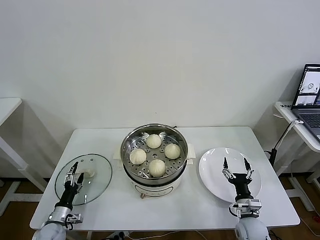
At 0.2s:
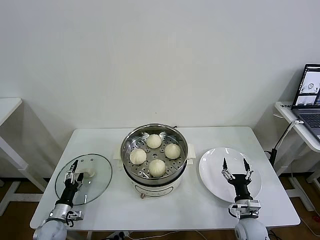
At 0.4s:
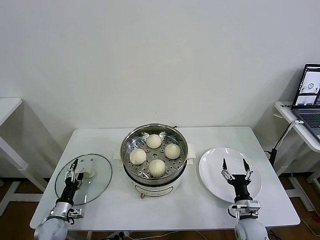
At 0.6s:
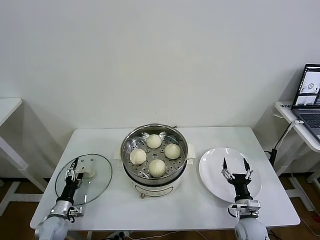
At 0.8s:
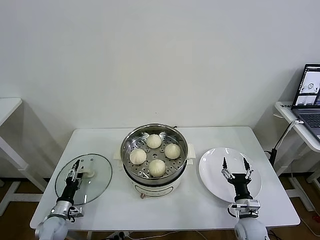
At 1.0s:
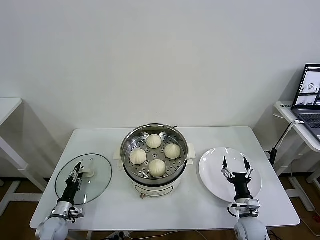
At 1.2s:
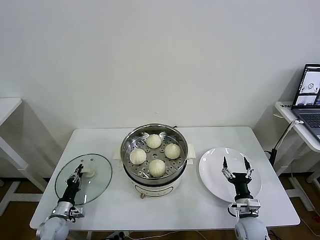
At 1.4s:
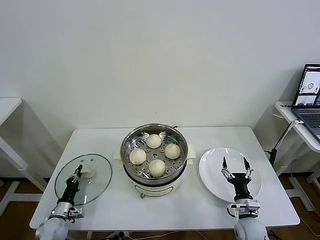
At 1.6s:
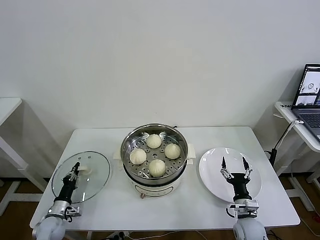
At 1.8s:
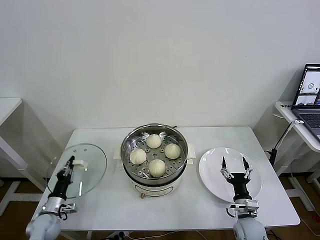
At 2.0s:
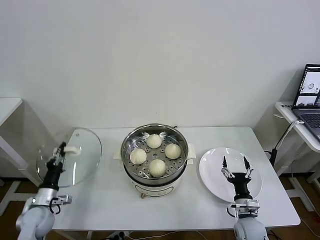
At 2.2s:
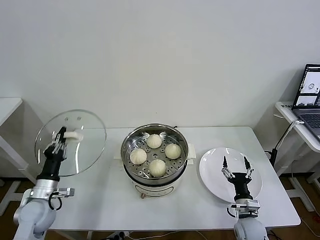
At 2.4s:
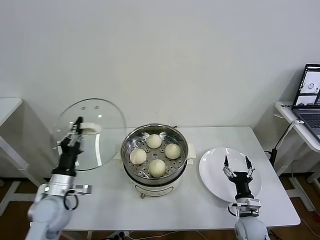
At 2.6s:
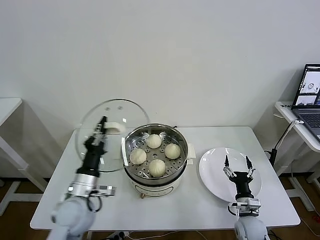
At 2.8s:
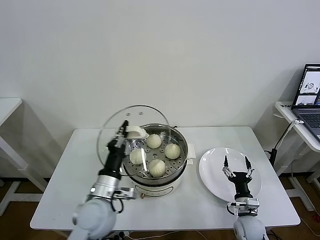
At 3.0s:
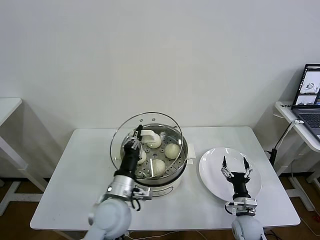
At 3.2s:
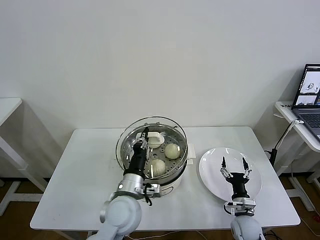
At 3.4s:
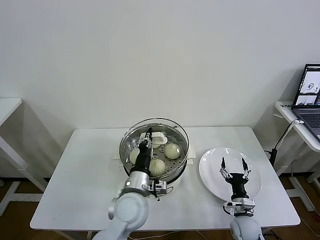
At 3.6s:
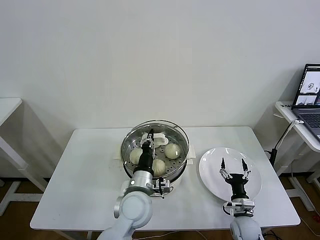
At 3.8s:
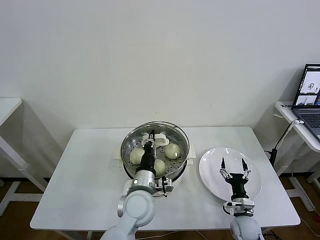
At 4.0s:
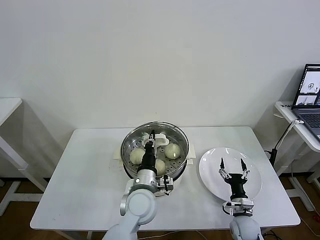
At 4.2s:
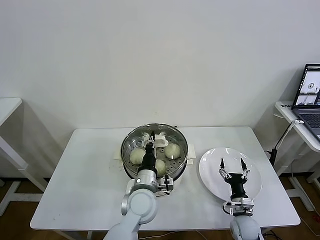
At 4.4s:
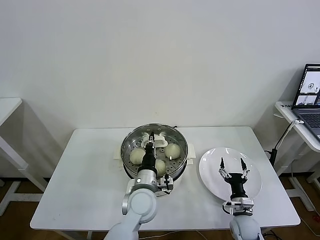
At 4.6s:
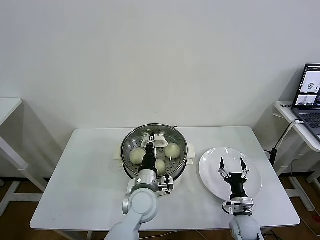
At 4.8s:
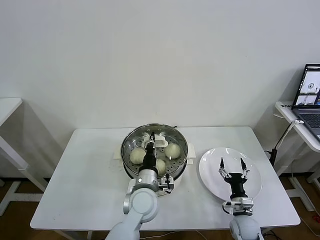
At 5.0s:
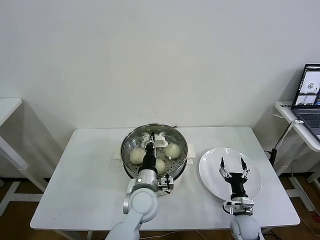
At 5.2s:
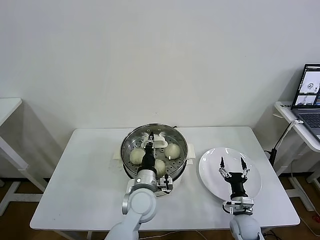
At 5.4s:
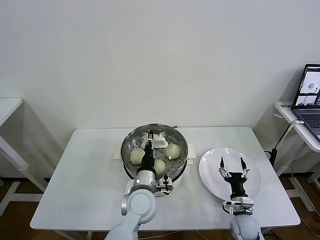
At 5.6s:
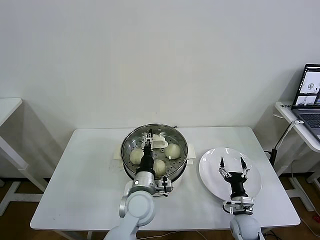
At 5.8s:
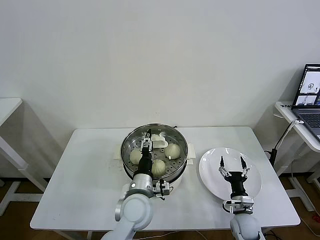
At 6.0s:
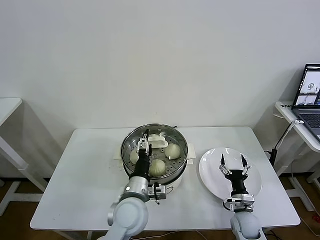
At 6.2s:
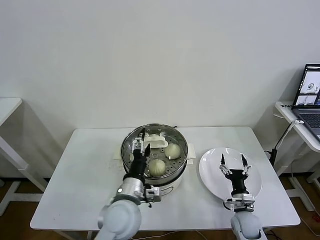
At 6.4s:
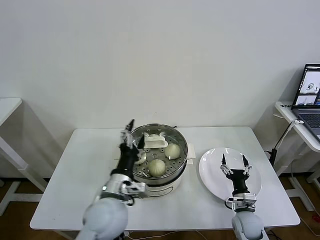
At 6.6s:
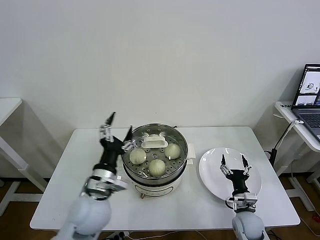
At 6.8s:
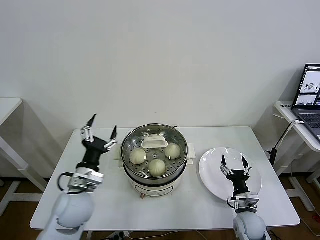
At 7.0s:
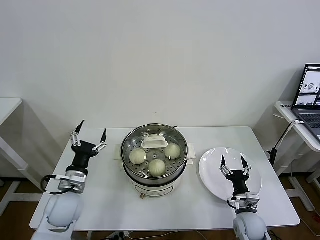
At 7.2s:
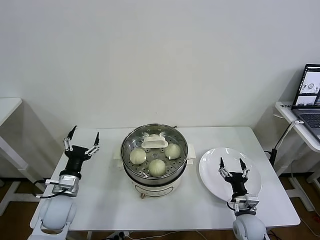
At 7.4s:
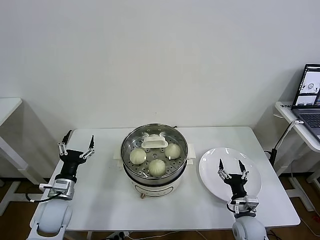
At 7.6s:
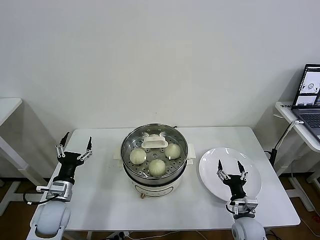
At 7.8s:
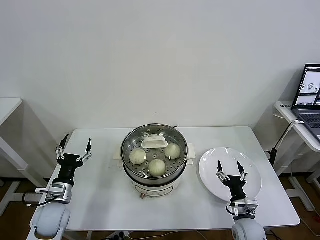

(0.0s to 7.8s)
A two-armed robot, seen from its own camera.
Task of the whole recording: take steamed baozi put them in steamer then cover it.
Step, 1.6s - 5.4s: Place the pot lid on the steamer with left gripper.
0.0s - 1.6s: The left gripper closes.
1.6s - 3.2s: The left gripper travels to the right and upward by approximately 40 cm.
3.2s - 4.6s: The left gripper heads to the right, covering approximately 5 cm.
4.6s - 6.2s: The left gripper ends up approximately 5 cm from where it was, and opens its fingers.
6.2s - 7.8s: The left gripper is displaced to the left by about 25 cm.

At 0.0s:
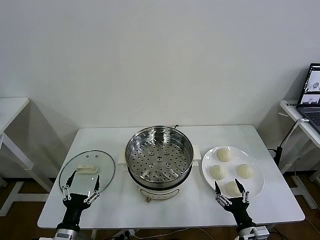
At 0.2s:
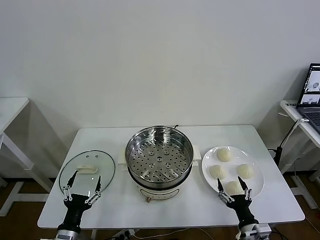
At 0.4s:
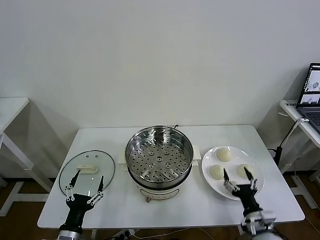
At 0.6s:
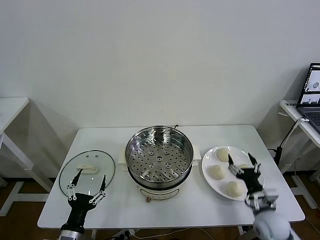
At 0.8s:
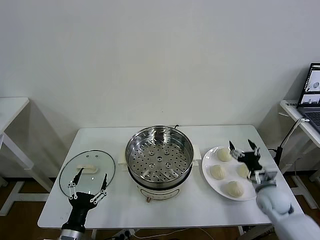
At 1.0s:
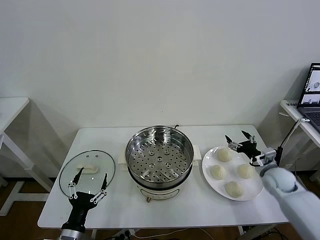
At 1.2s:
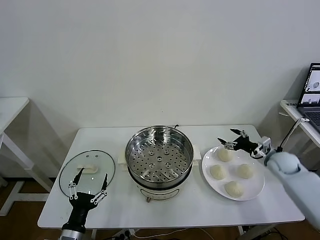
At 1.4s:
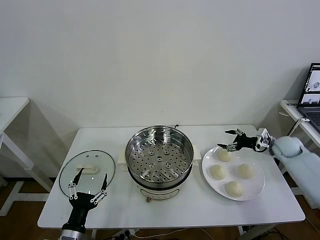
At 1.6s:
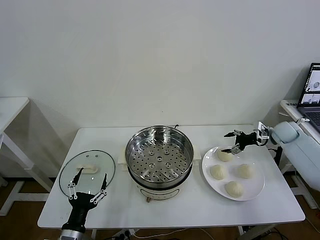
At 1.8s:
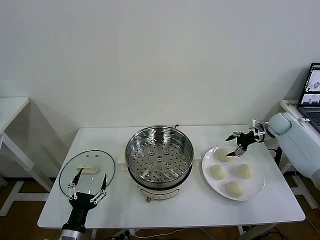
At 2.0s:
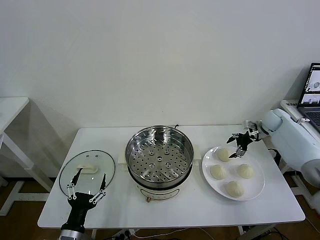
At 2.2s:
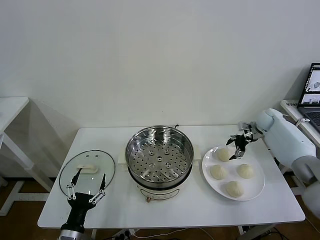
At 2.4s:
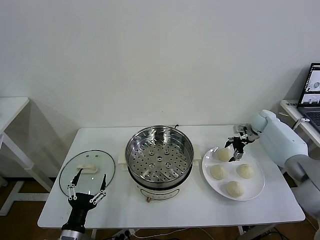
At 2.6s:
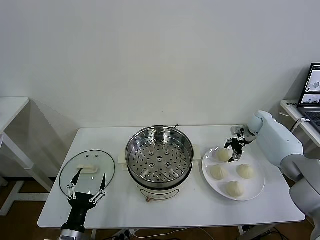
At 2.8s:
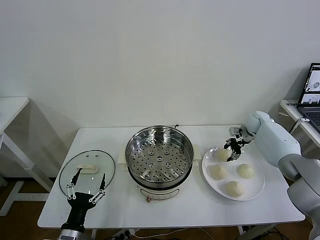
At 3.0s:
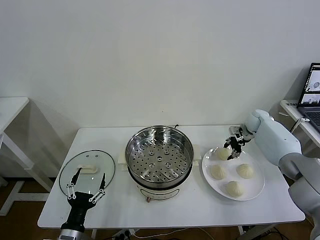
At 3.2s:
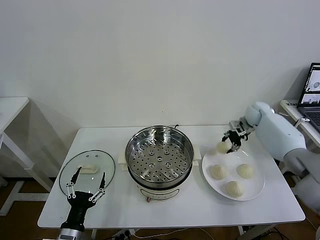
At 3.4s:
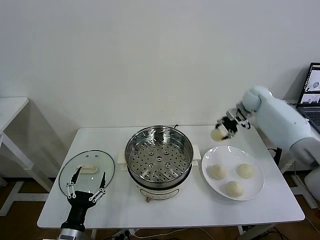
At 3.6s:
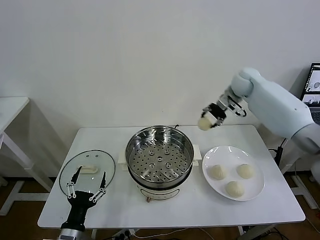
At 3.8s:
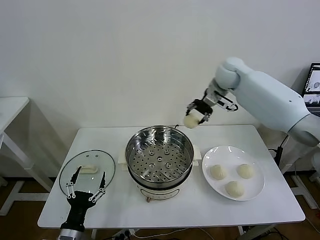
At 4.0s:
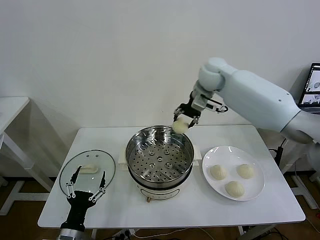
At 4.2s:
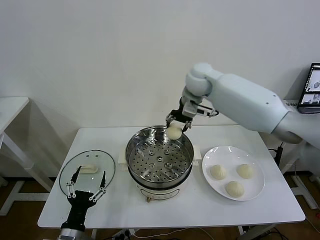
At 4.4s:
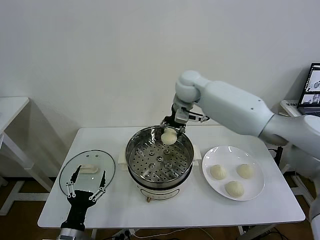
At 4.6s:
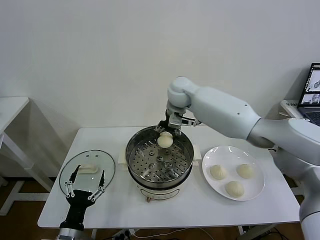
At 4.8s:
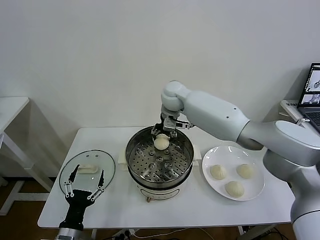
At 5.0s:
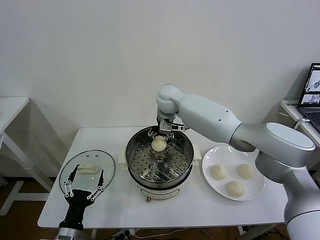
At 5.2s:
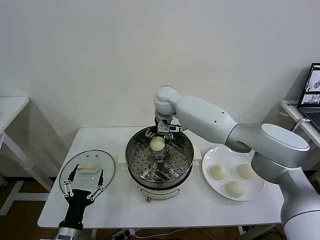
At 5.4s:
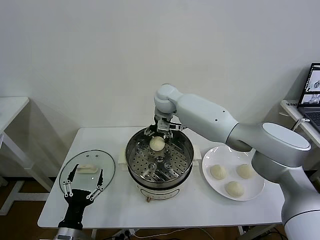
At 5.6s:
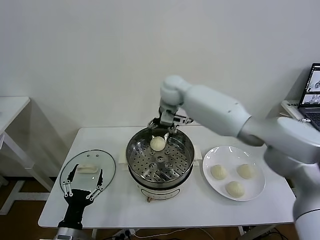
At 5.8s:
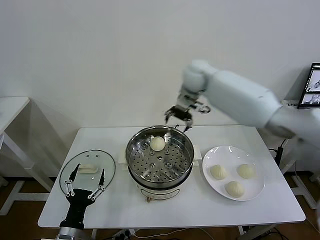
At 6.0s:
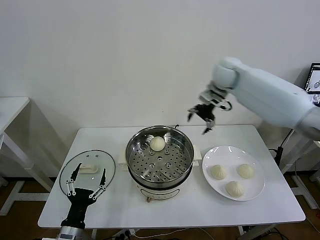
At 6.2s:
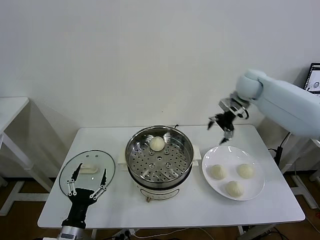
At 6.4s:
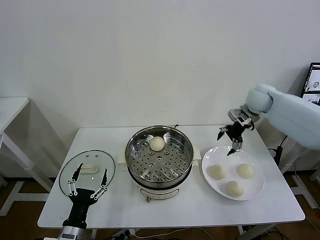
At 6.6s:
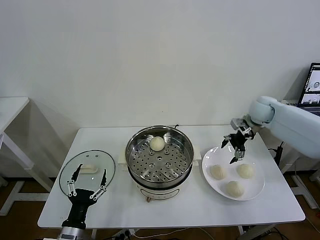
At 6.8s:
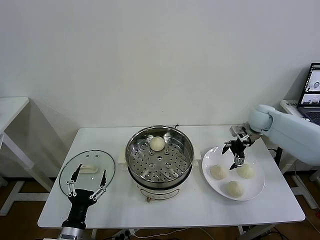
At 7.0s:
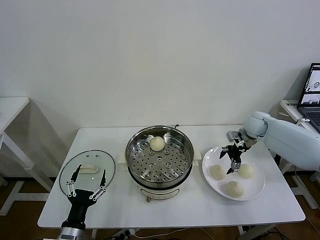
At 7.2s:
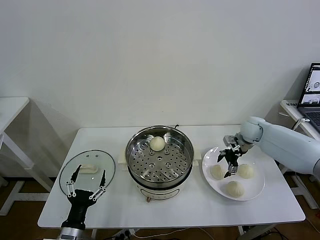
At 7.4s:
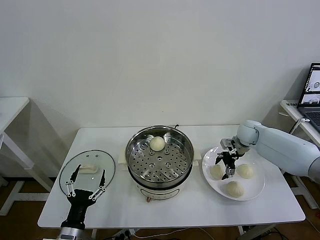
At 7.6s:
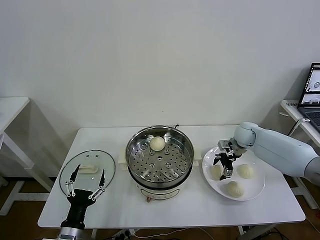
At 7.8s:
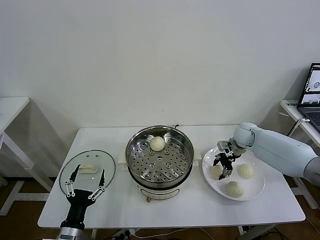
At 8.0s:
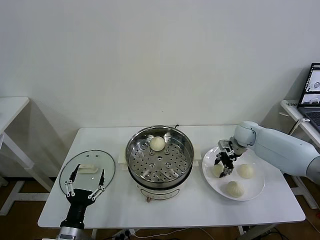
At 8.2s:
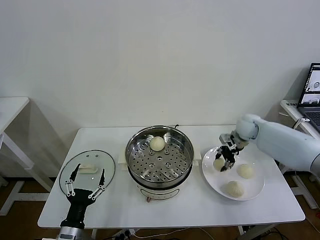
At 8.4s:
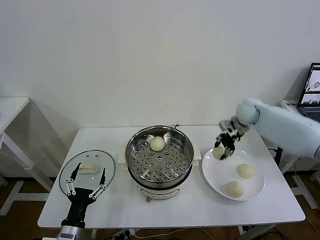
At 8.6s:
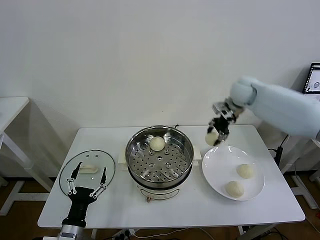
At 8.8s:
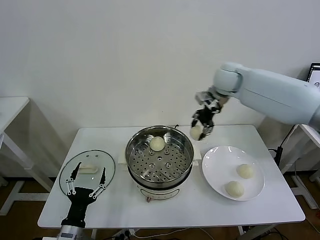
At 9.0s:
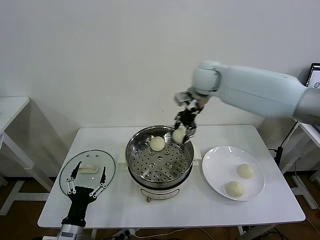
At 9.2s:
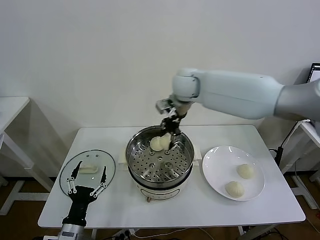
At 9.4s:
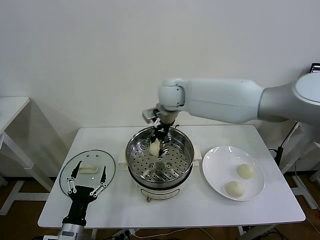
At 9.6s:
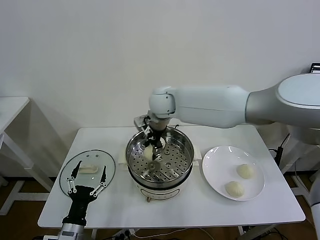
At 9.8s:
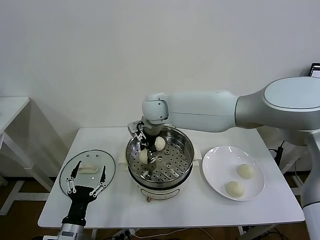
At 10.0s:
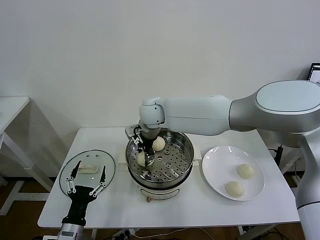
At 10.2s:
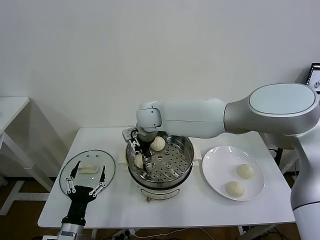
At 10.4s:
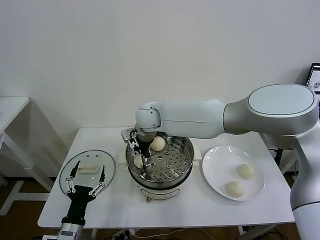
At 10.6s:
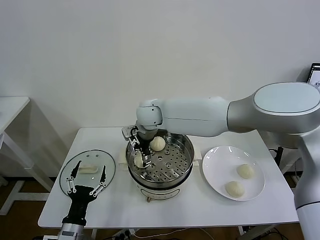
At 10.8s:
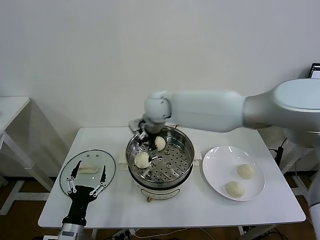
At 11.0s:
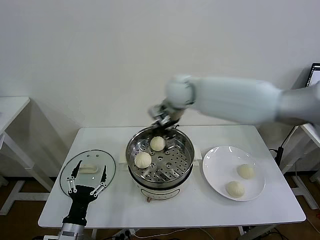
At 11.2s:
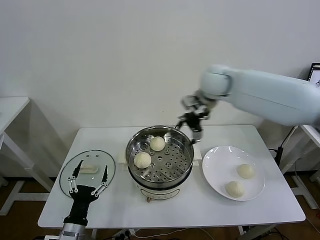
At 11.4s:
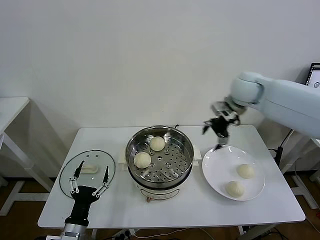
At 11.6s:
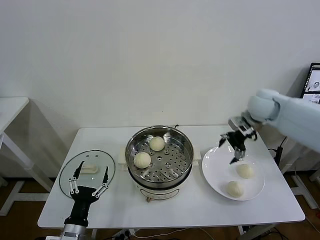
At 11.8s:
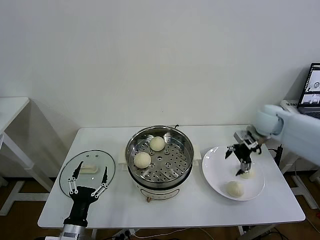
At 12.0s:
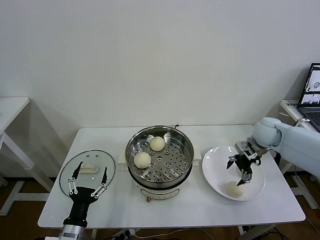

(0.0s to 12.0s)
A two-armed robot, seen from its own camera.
Task of the whole recording: take steamed baozi put them in steamer then cover it.
Step, 0.0s - 2.6s: Grasp the baozi in the plate with right gripper.
Step, 2.8s - 5.2s: Place the baozi on the steamer with right gripper.
Step, 5.4s - 7.8s: Grasp the baozi in the plate with right gripper.
Step, 8.0s - 10.4s: Place the baozi on the steamer with right gripper.
1.6s - 3.0s: The right gripper travels to the left and forward by approximately 10 cm, and closes its fingers.
3.0s - 4.4s: The right gripper shifts roughly 35 cm to the left and upward.
4.4s - 6.0s: The right gripper heads to the right, covering about 20 cm, and opens its fingers.
6.0s - 7.6s: The right gripper moves downward, some 20 cm.
7.6s - 9.0s: The right gripper shifts some 35 cm upward and to the left, and closes.
9.0s - 10.4s: The right gripper goes roughly 20 cm to the left and downward, and opens up.
10.4s - 12.0s: The right gripper travels to the right by approximately 40 cm.

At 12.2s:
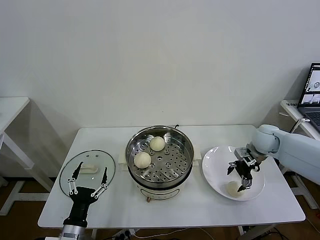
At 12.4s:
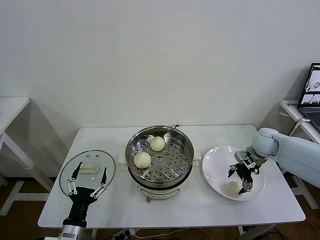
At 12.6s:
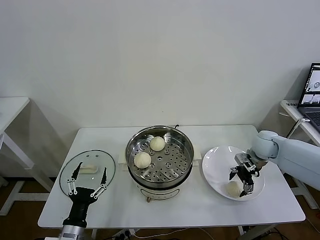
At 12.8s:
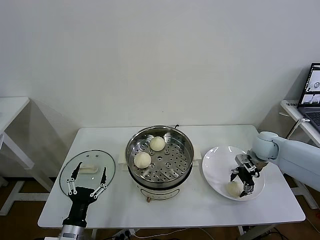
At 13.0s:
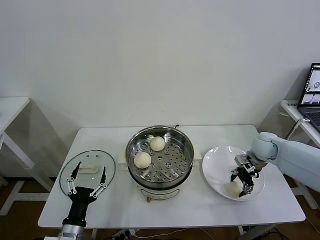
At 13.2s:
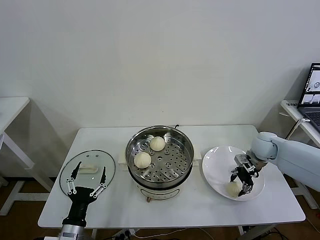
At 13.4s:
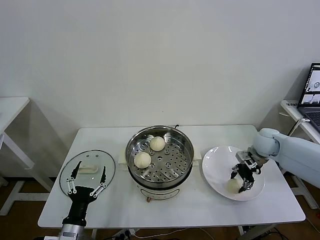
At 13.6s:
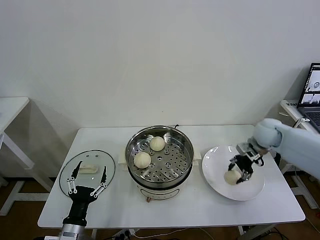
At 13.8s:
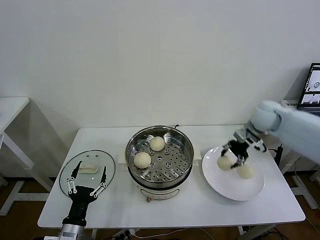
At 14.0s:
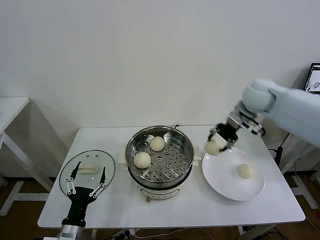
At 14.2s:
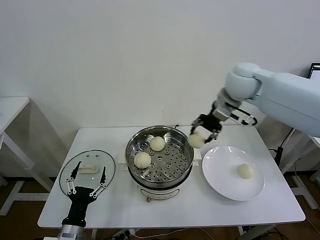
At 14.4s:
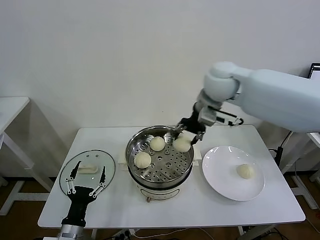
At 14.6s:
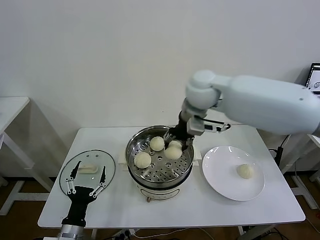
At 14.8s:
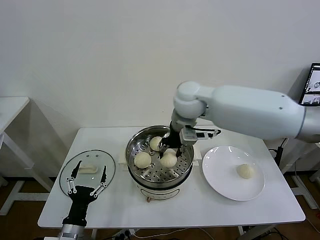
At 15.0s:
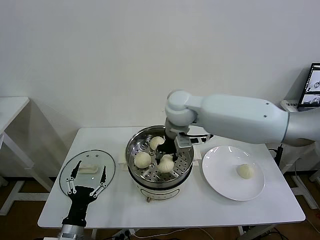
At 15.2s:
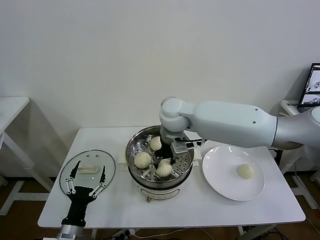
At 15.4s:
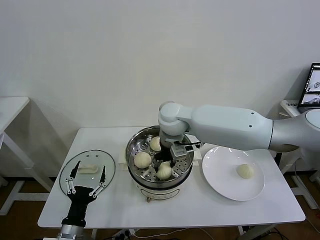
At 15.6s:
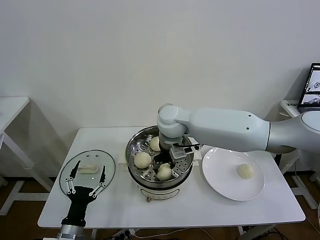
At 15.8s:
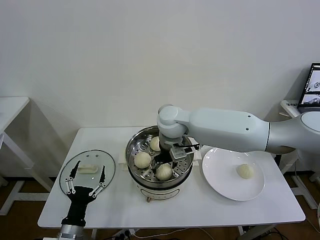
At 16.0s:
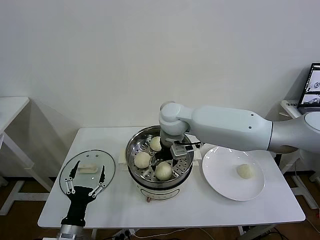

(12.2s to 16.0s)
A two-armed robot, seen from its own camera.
Task of the whole recording: take steamed baozi put them in steamer then cover it.
Step, 13.4s - 15.8s: Place the baozi on the steamer with right gripper.
12.2s - 13.4s: The right gripper closes its fingers.
13.4s - 14.8s: The right gripper shifts some 35 cm to the left and upward.
14.8s - 16.0s: The right gripper shifts approximately 5 cm downward, and opens up.
